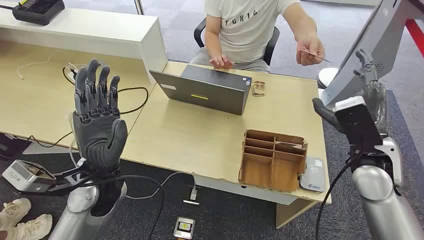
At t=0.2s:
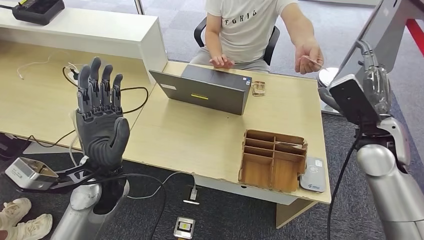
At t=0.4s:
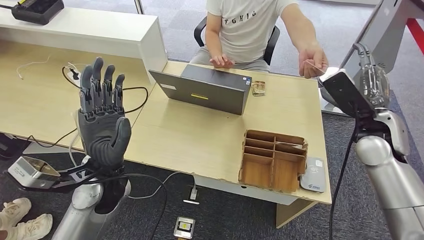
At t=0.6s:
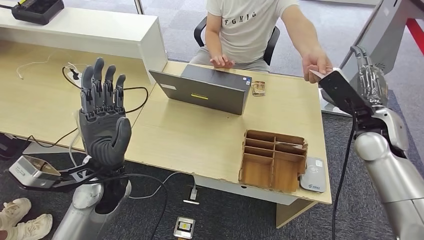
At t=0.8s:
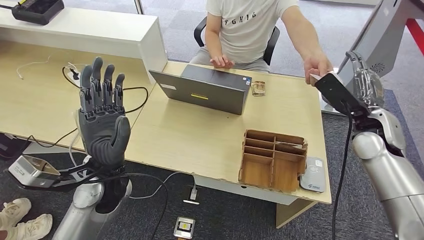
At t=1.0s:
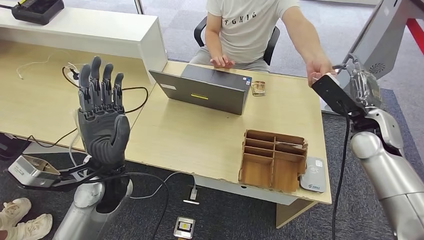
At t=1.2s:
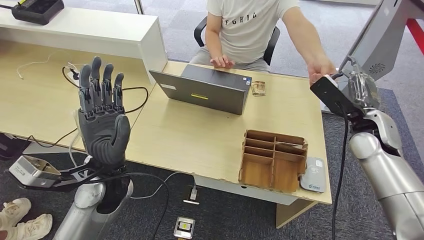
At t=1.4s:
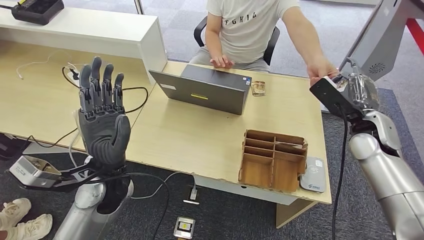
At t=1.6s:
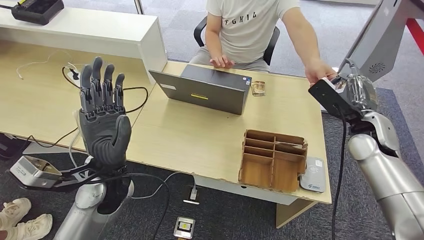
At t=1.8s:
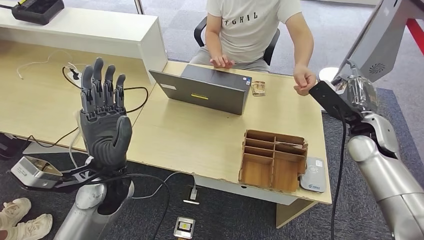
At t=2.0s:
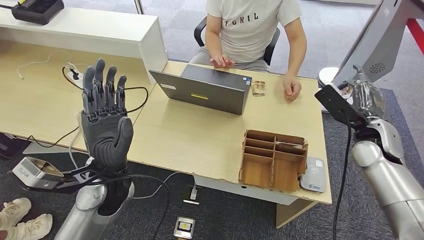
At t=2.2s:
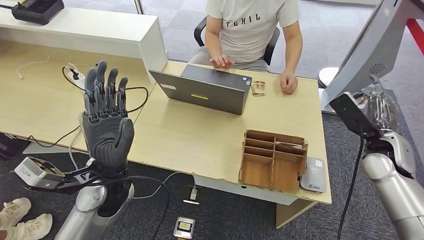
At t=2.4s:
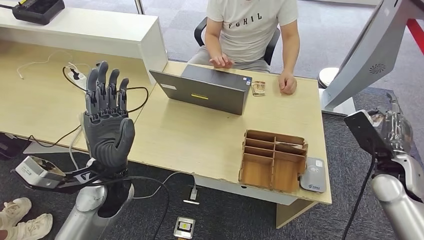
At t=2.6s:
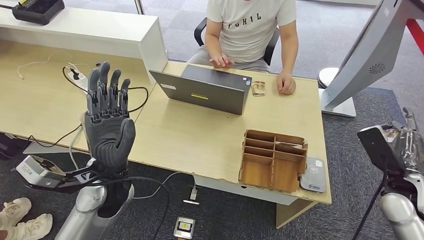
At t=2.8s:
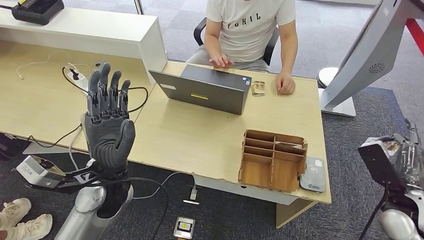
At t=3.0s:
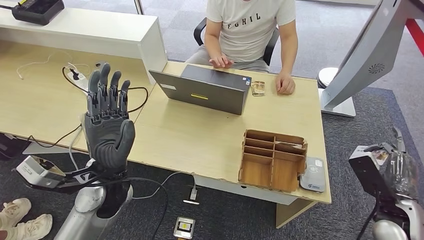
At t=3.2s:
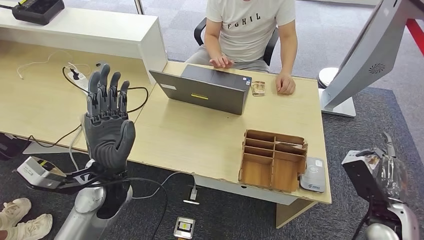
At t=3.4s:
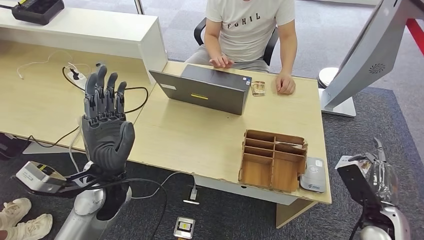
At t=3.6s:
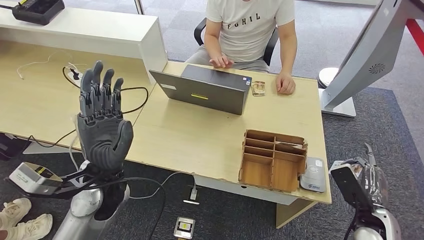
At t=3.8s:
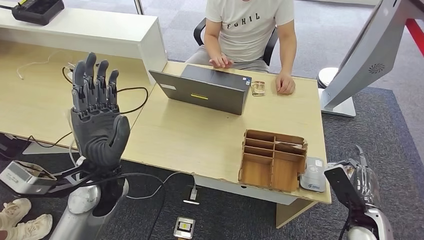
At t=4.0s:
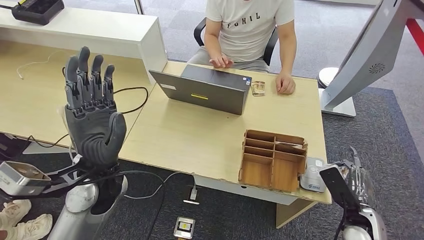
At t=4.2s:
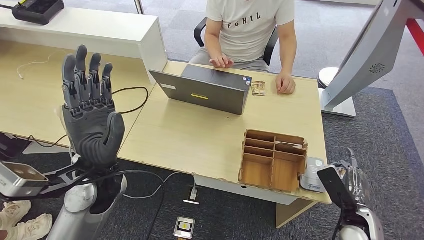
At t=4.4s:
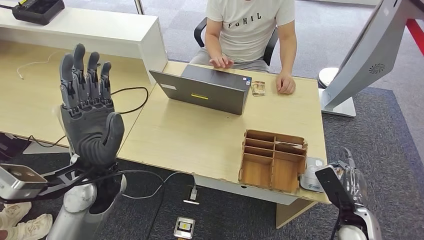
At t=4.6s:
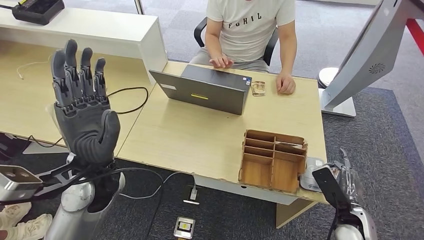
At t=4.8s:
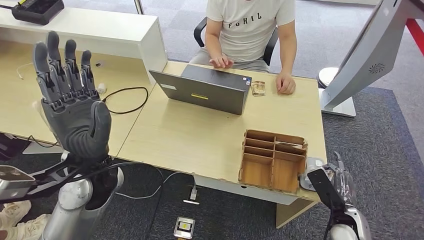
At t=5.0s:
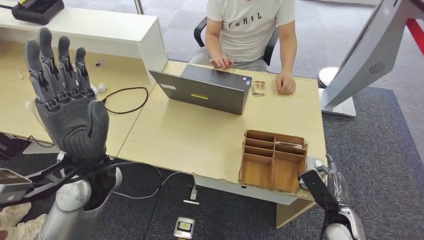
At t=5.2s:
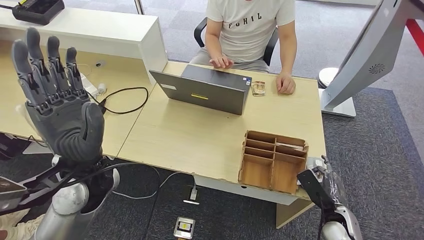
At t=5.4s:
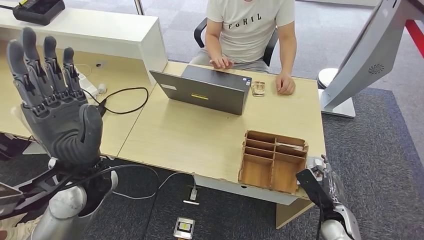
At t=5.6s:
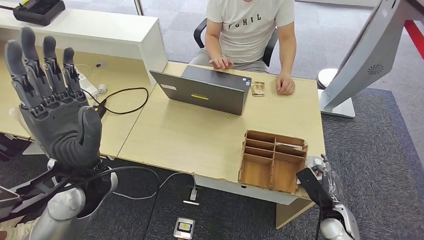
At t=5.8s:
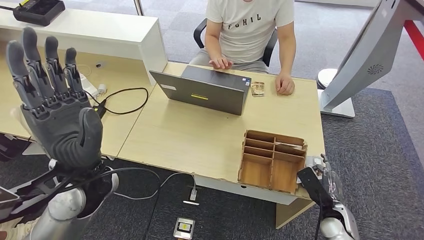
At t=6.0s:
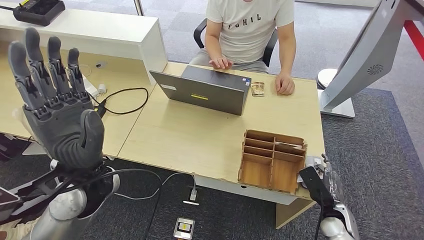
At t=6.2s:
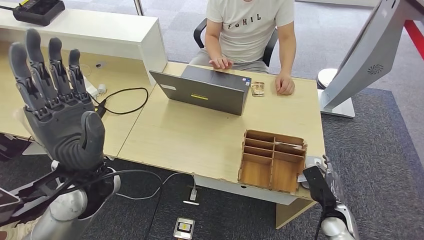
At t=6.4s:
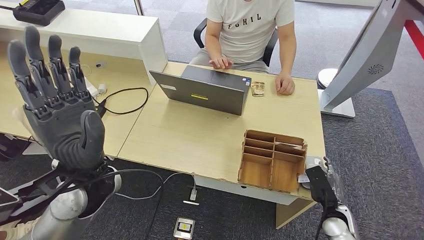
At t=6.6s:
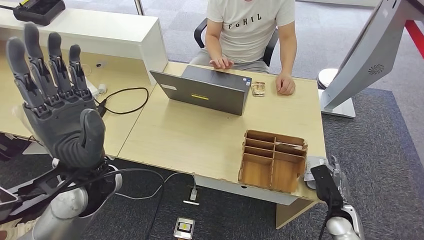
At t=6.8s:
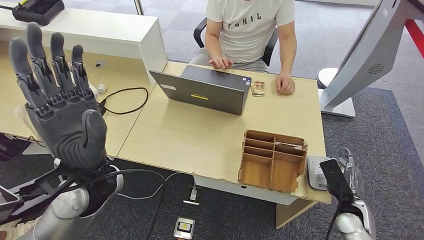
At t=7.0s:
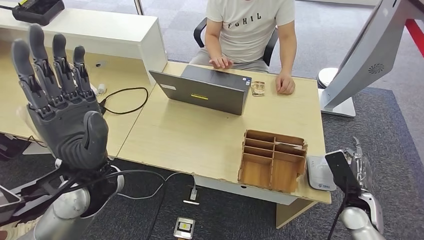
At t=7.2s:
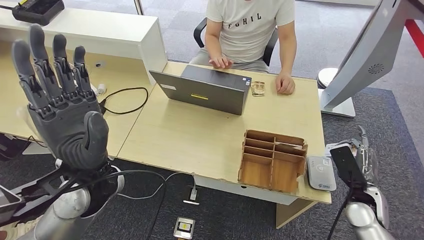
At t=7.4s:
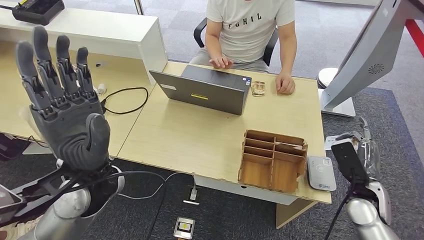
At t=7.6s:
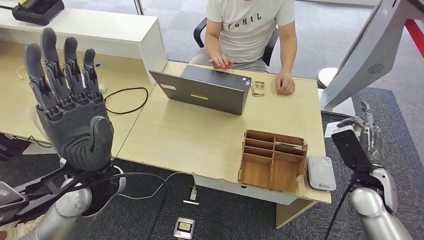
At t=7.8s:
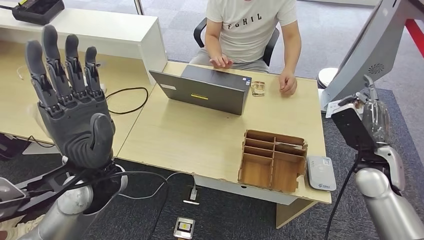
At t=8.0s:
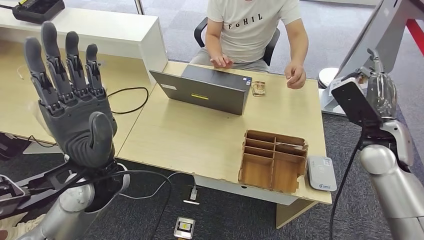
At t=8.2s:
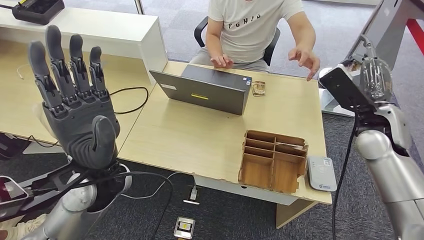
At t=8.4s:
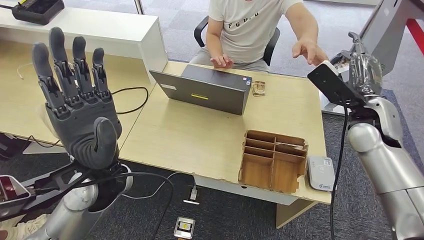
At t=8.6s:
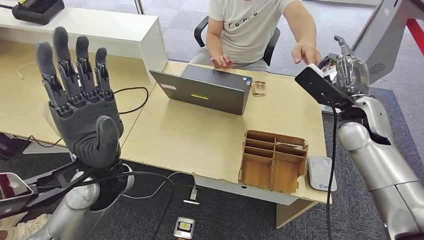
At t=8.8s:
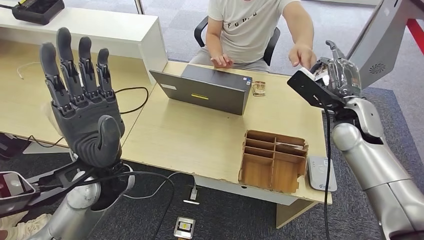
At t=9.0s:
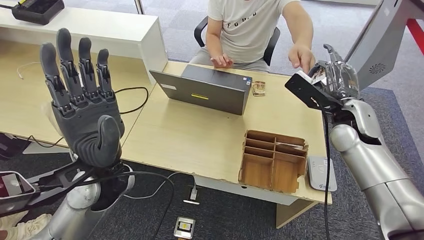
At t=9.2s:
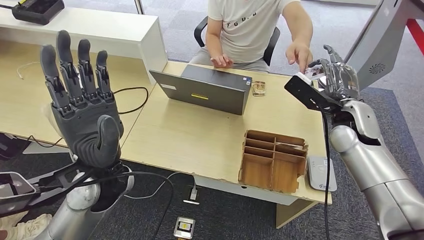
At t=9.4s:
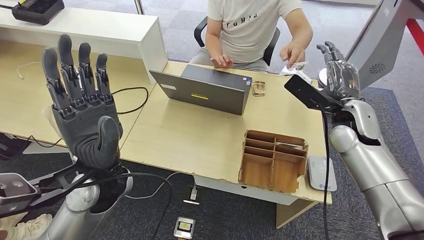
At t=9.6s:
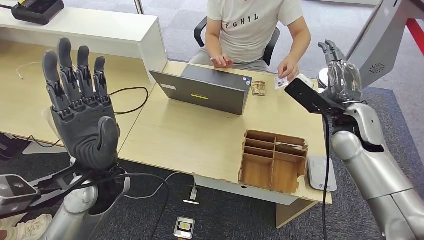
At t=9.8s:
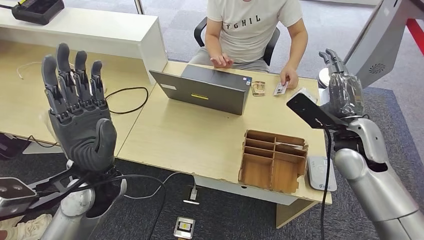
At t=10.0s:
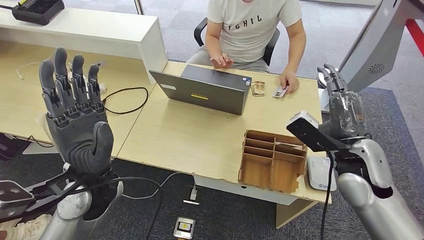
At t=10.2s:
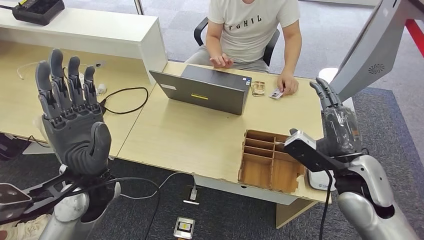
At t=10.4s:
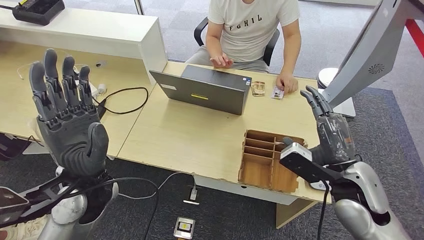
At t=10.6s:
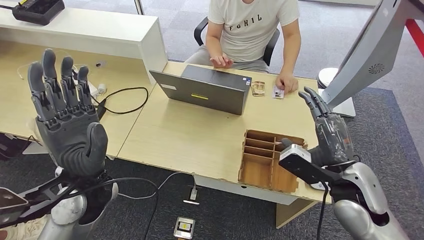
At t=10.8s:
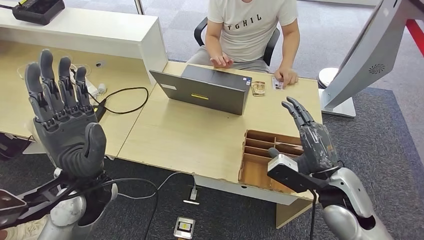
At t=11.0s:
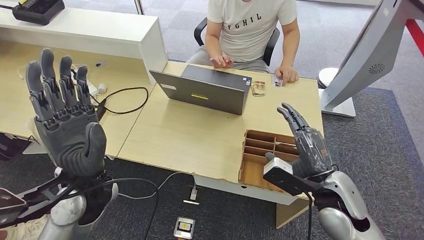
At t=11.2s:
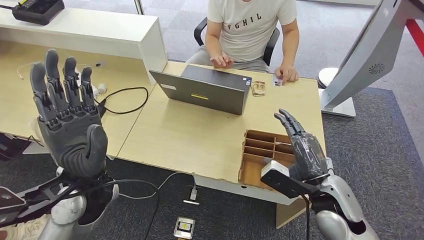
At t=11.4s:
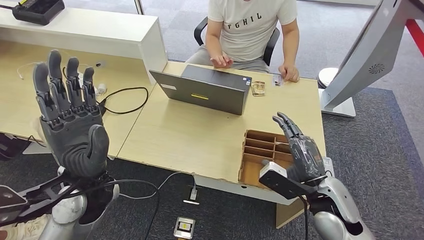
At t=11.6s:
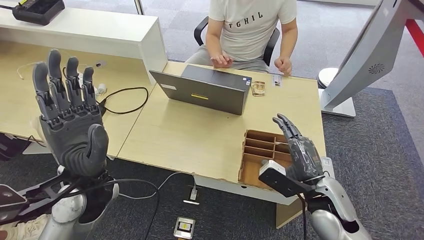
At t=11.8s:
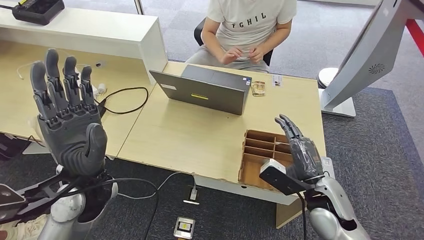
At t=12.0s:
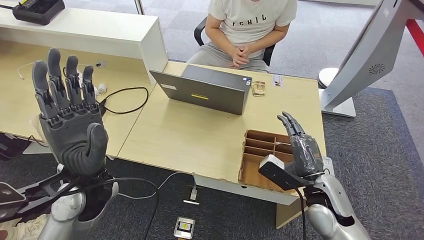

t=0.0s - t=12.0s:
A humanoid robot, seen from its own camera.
Step, t=0.0s - t=2.8s: Take the ID card from the person's hand.
Step, t=3.0s - t=7.2s: Place the ID card on the card reader.
Step, t=7.4s - t=10.0s: Hand the ID card to the person.
t=1.6s - t=3.0s: The right hand goes roughly 20 cm backward, downward and to the right.
t=3.0s - t=4.4s: The right hand heads downward, covering approximately 10 cm.
t=4.4s - t=6.0s: The right hand ends up approximately 5 cm from where it was.
t=6.0s - t=7.6s: The right hand goes roughly 15 cm upward.
t=10.4s - t=12.0s: The right hand shifts roughly 10 cm downward.

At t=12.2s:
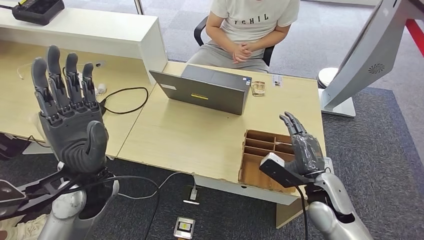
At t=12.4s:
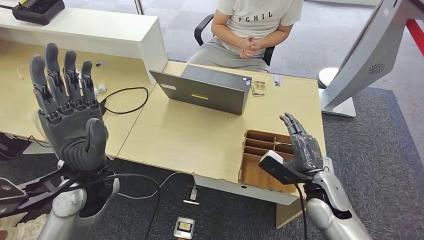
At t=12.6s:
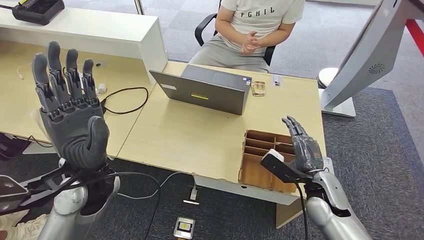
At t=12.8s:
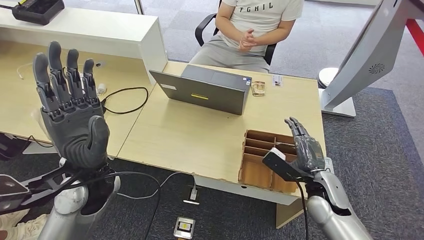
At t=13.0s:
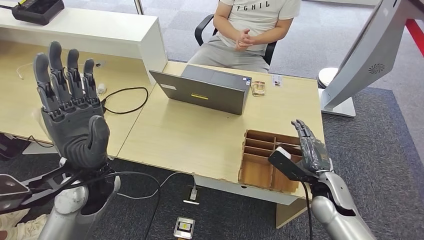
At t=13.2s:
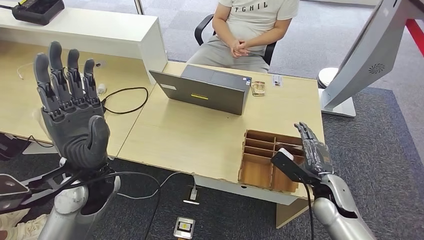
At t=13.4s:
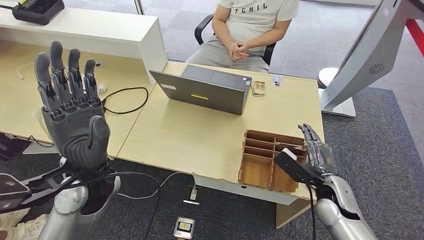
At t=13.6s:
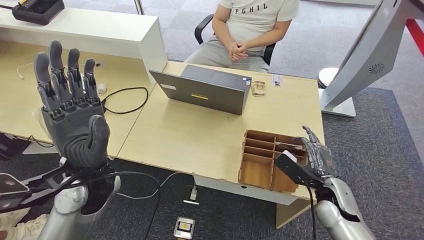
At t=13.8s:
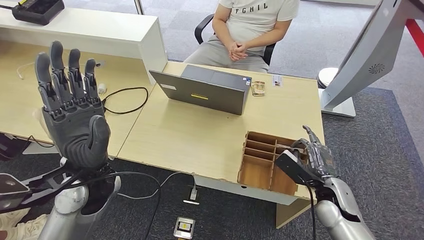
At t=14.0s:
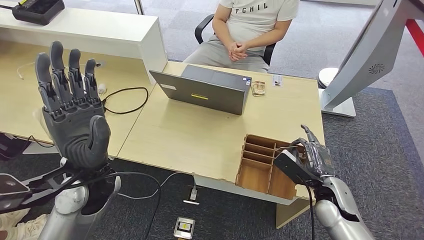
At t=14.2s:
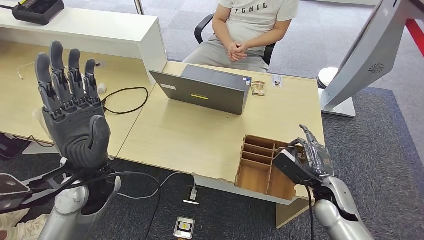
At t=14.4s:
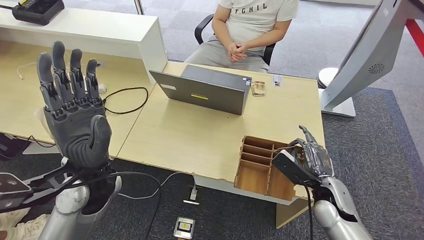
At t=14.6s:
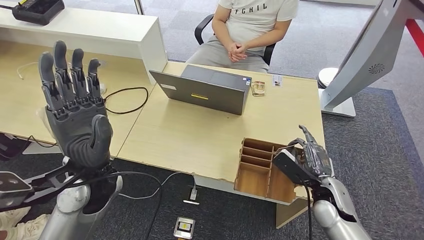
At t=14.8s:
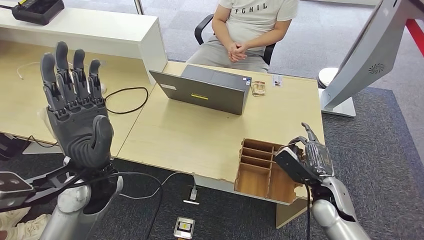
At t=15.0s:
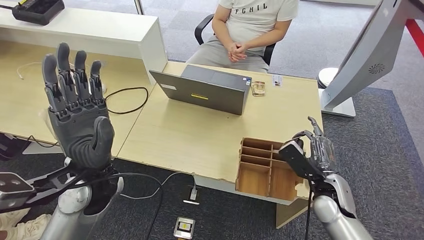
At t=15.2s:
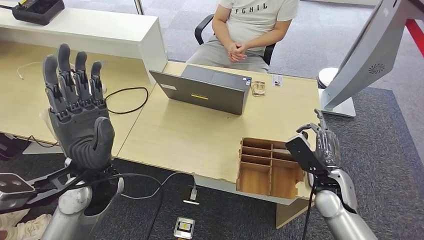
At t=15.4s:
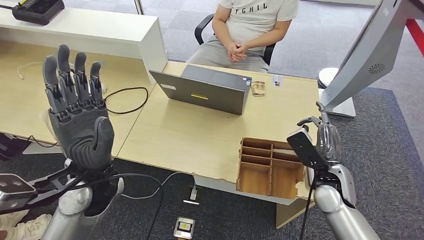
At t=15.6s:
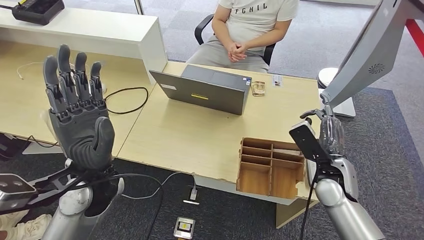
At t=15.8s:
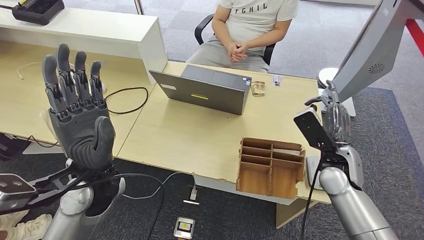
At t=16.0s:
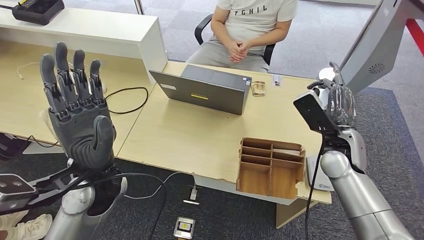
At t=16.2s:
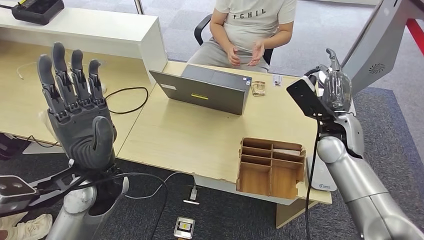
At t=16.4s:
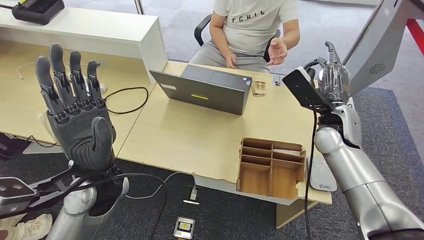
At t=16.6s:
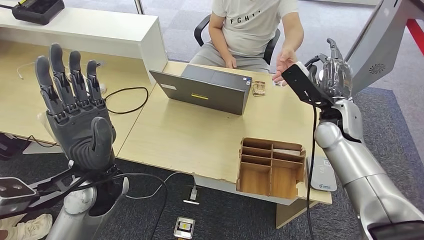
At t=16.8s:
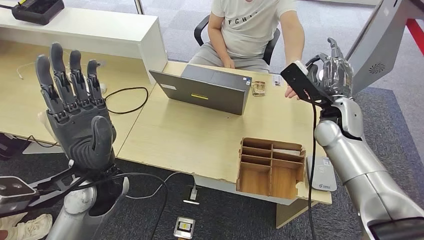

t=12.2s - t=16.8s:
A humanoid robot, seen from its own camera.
t=12.2s - t=13.8s: The right hand moves approximately 5 cm.
t=13.8s - t=15.2s: There are only small adjustments of the hands.
